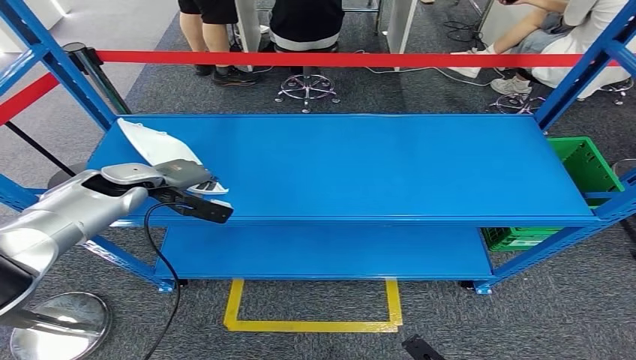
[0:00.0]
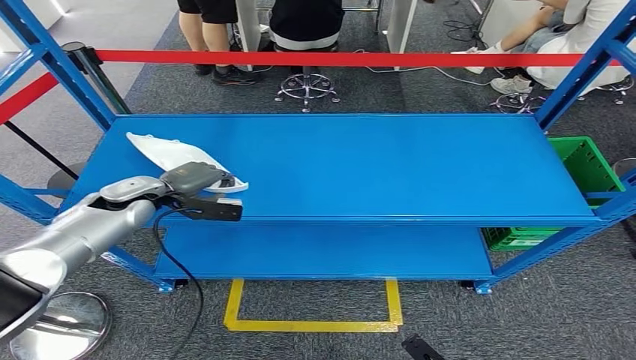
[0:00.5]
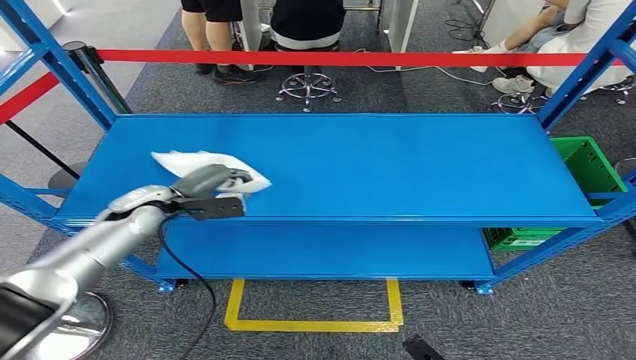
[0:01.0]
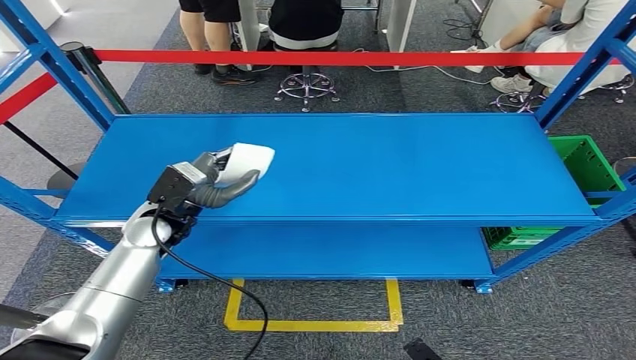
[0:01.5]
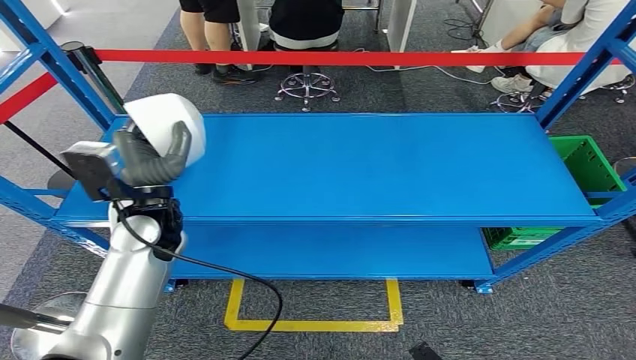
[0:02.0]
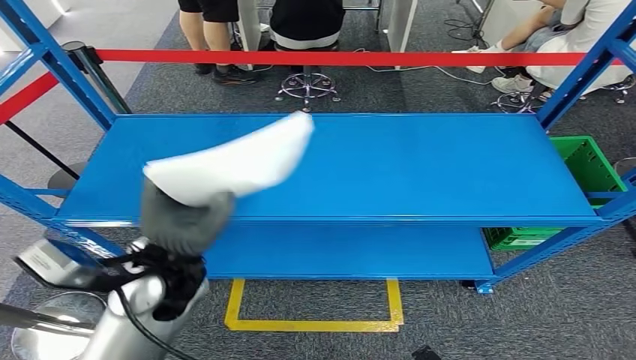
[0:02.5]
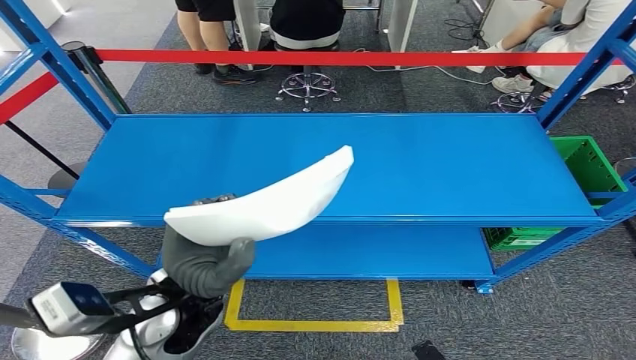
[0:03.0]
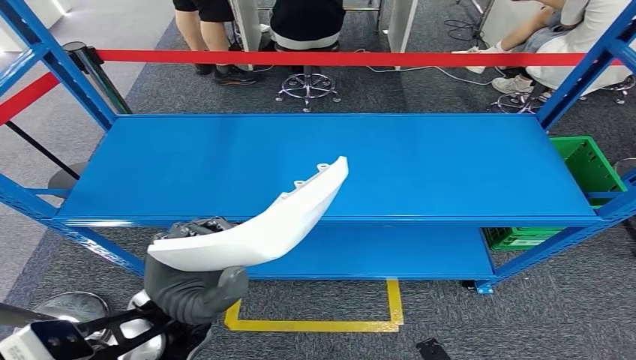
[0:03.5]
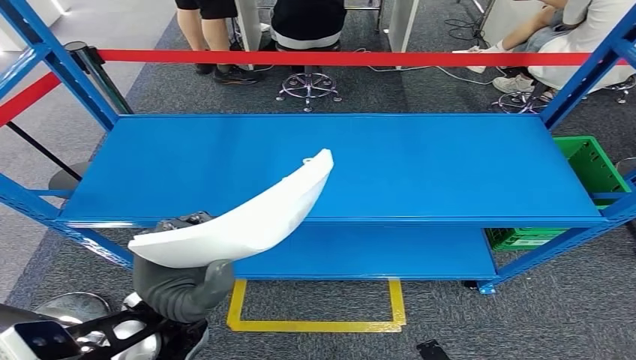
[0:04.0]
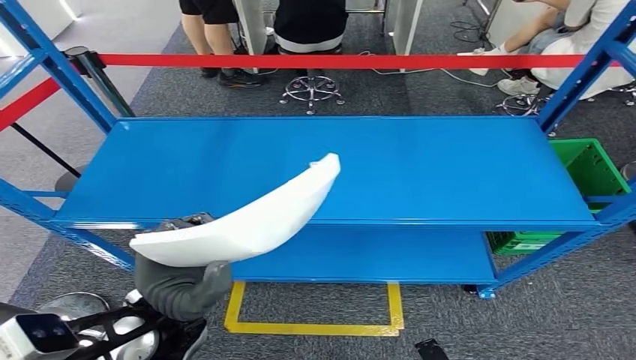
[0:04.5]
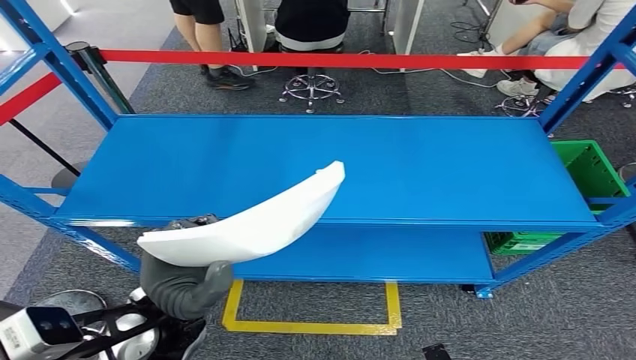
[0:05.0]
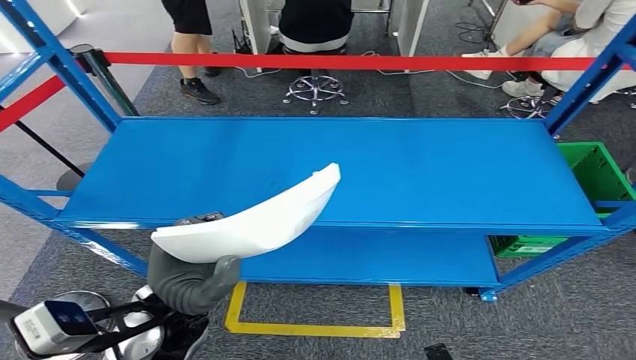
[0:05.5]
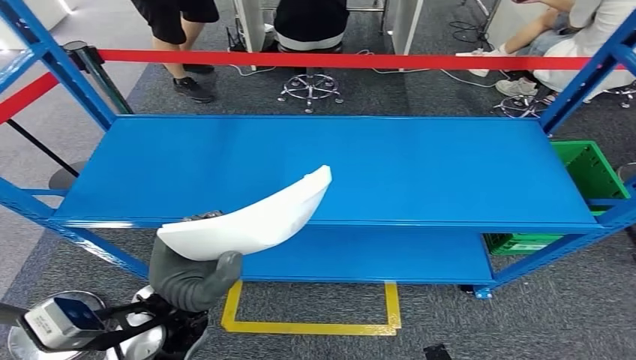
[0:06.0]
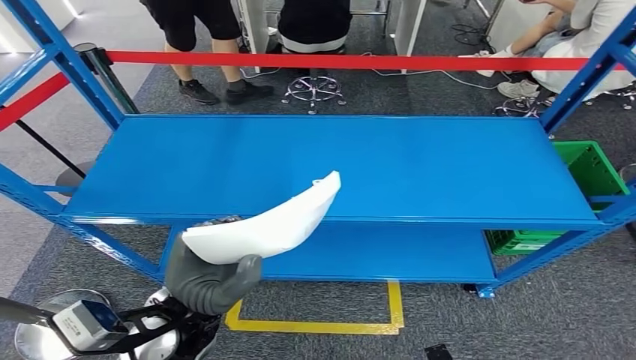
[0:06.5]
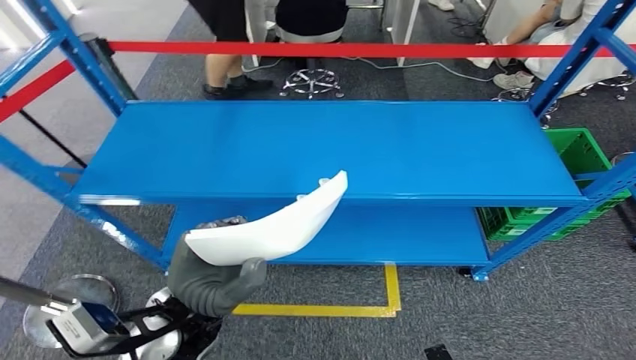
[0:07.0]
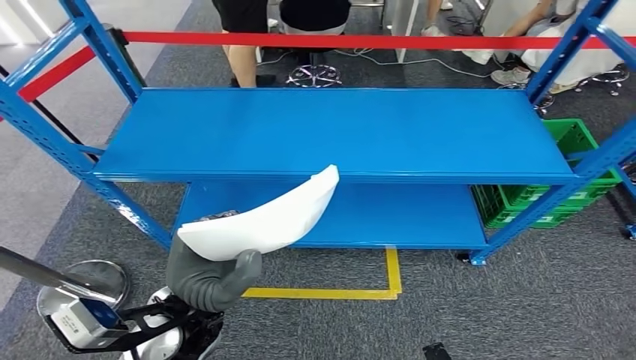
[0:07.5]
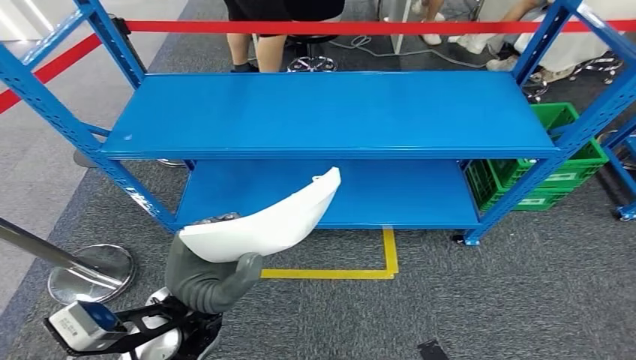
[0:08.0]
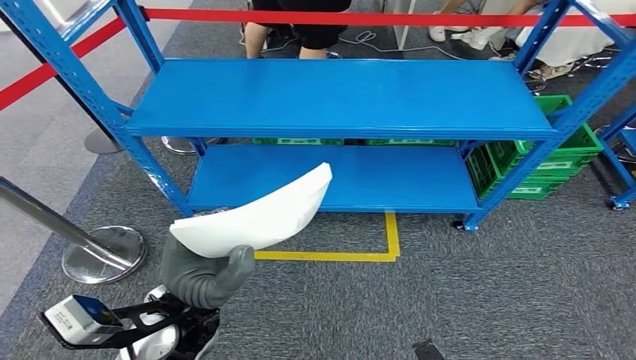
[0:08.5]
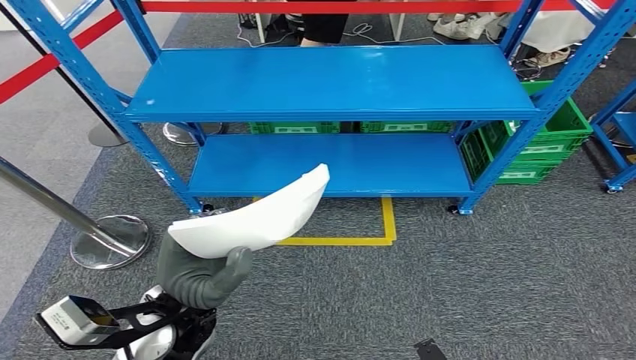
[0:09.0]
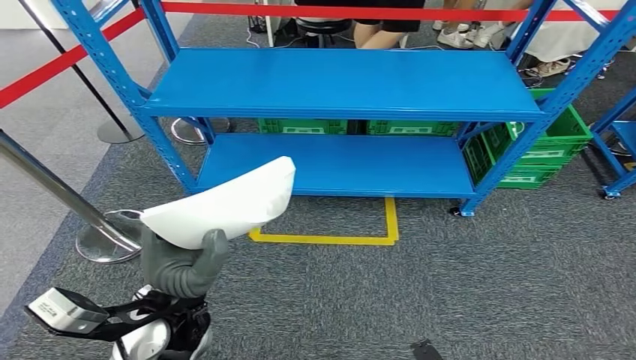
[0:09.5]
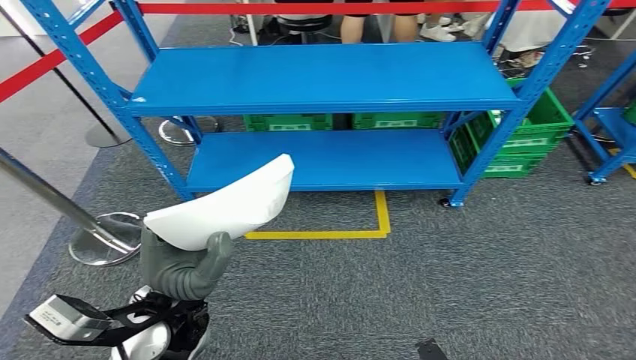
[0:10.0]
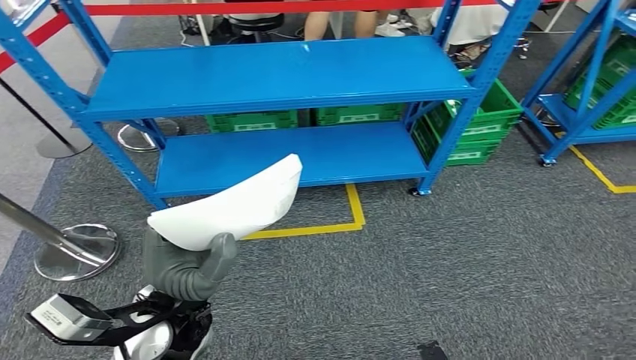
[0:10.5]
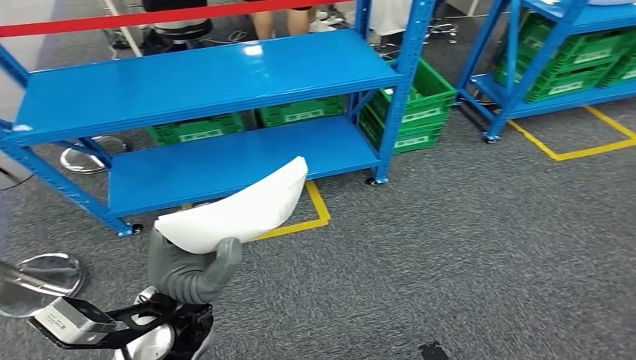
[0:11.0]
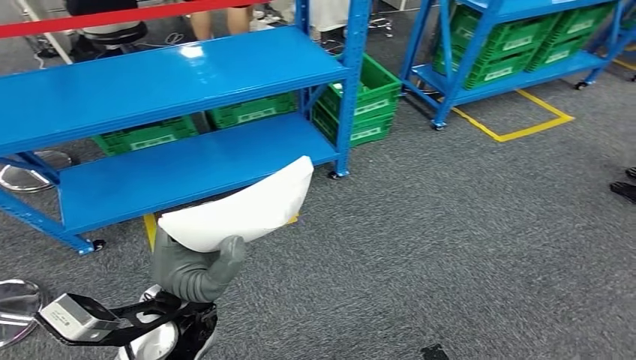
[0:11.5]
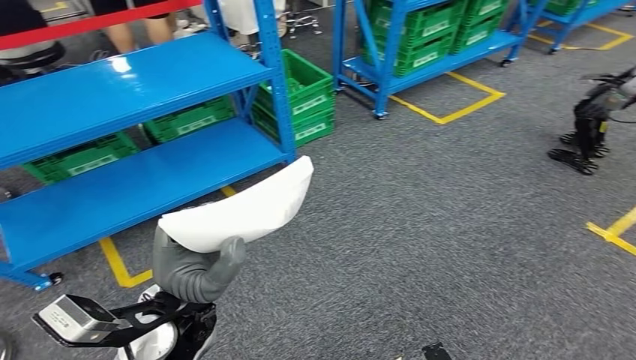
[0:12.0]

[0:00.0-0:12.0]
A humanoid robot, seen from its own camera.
Step, 0:00.0 to 0:06.0: Take small components from the rack.
0:00.0 to 0:02.0: The left hand heads to the right and backward, covering about 15 cm.

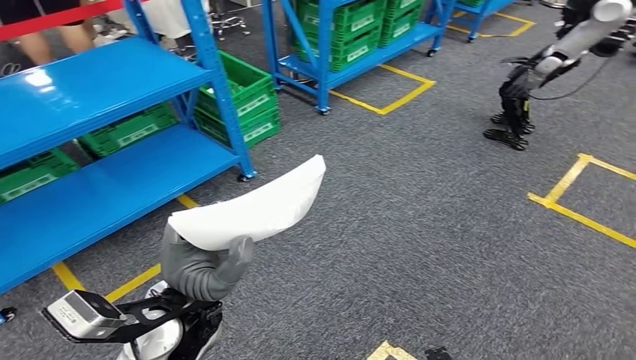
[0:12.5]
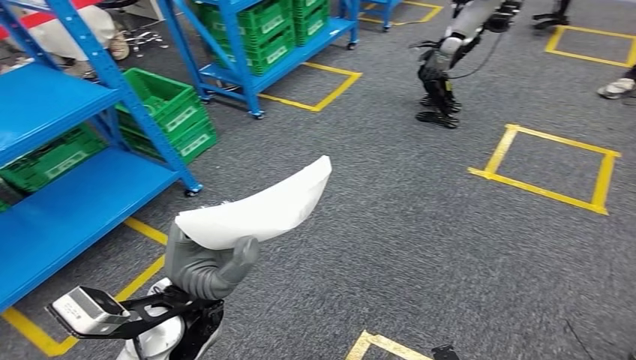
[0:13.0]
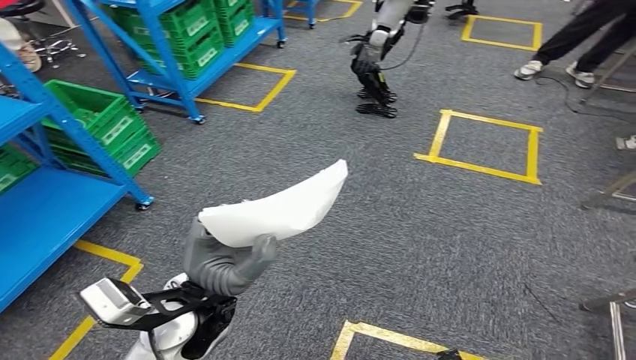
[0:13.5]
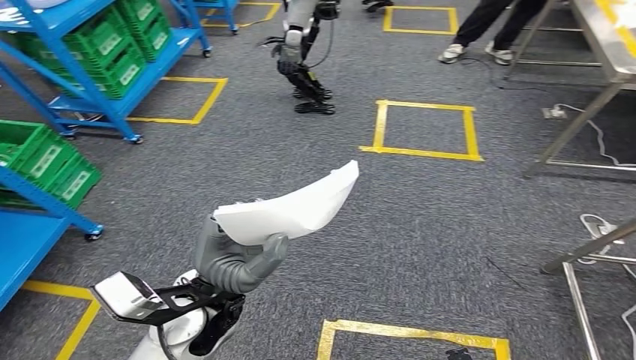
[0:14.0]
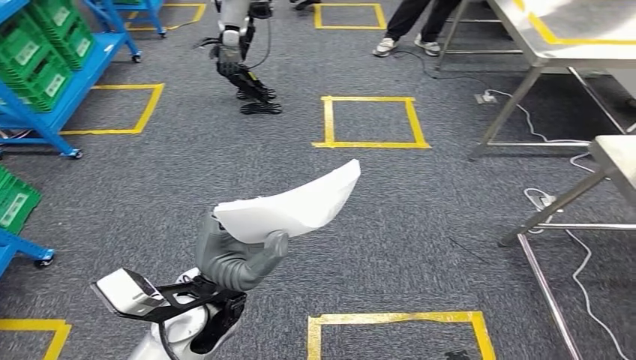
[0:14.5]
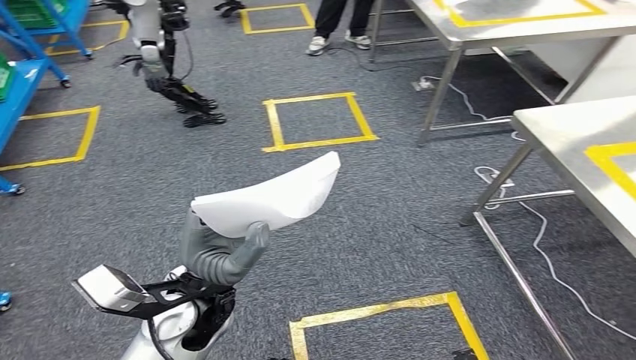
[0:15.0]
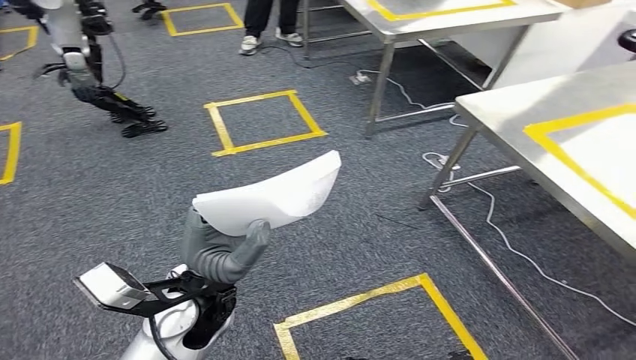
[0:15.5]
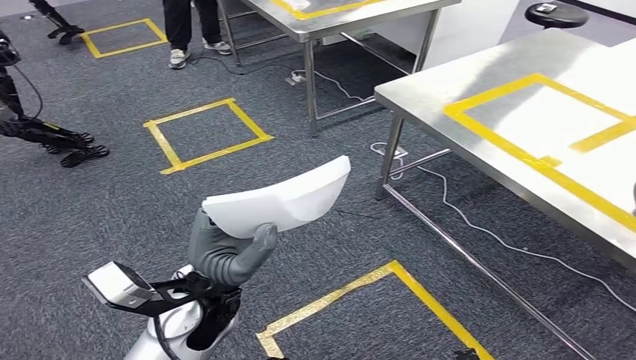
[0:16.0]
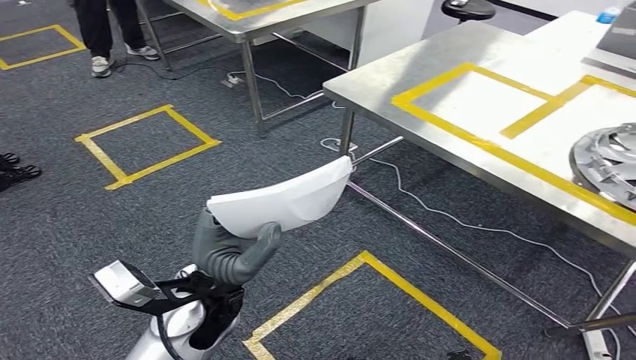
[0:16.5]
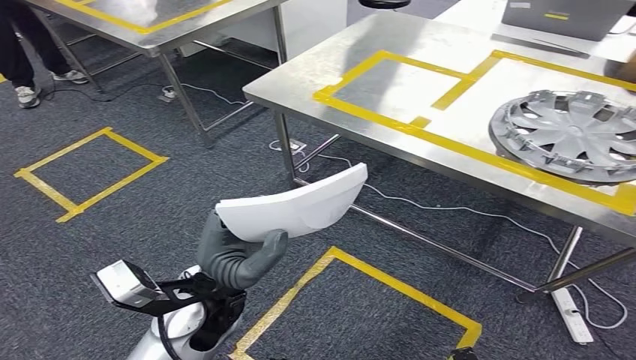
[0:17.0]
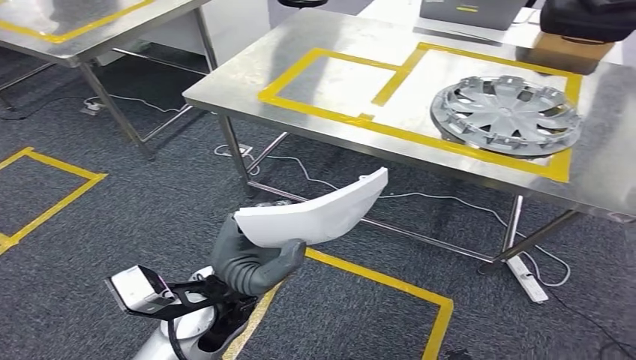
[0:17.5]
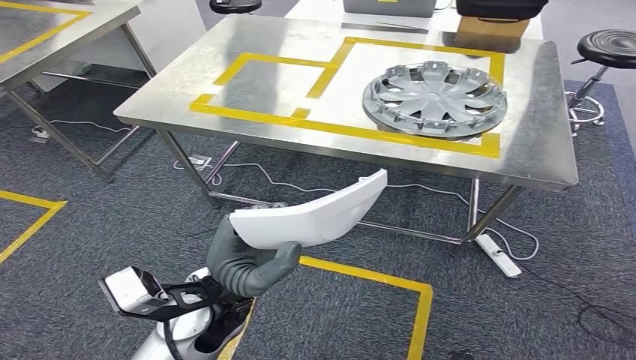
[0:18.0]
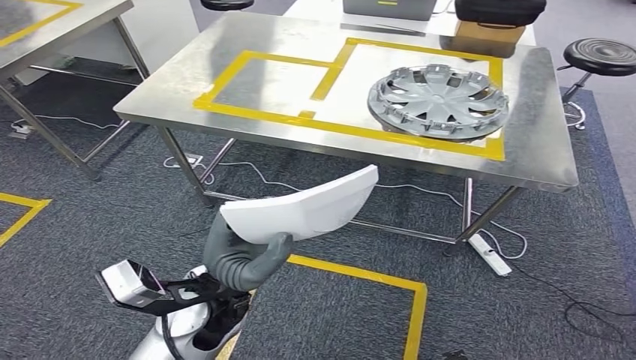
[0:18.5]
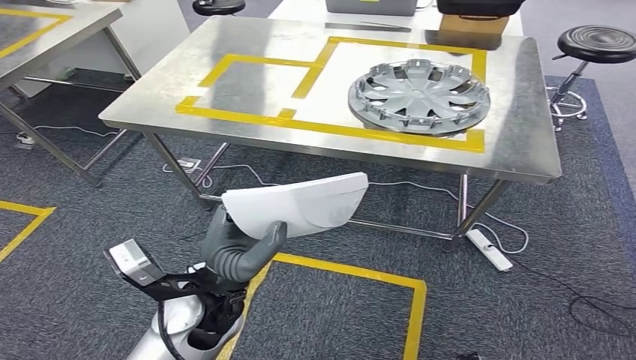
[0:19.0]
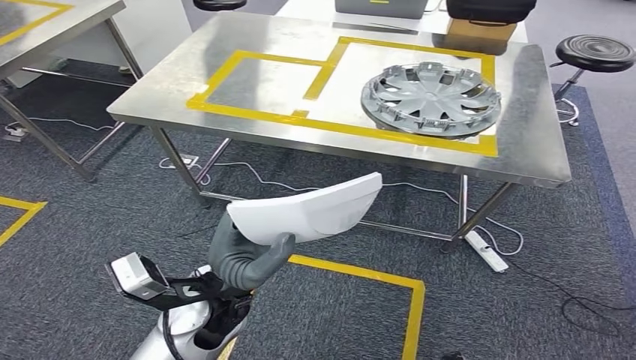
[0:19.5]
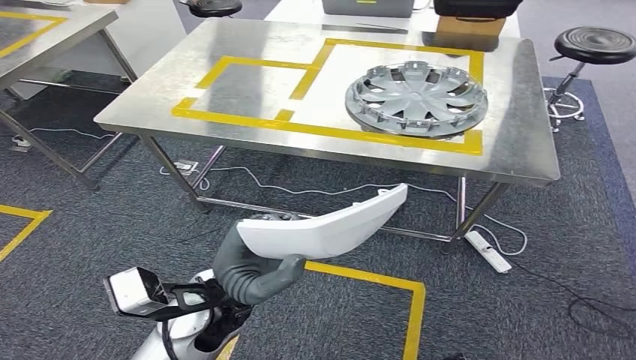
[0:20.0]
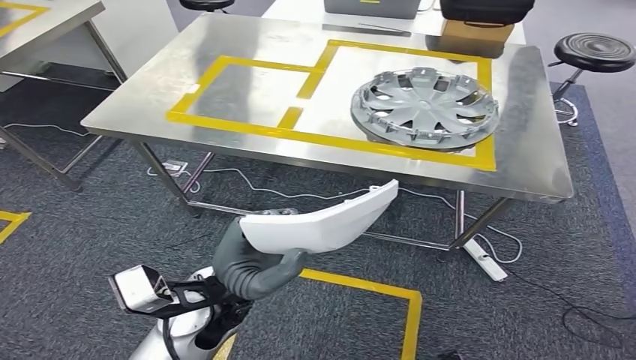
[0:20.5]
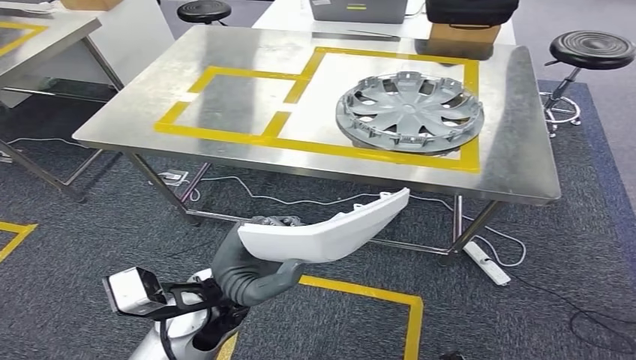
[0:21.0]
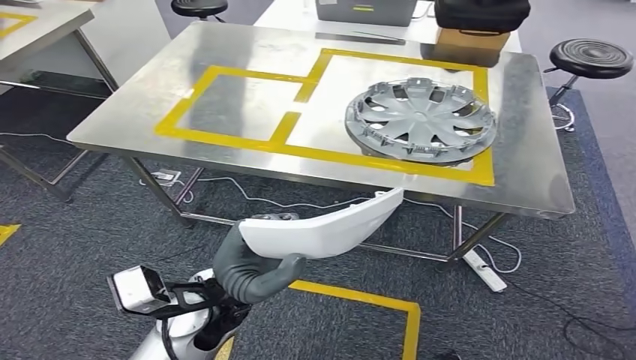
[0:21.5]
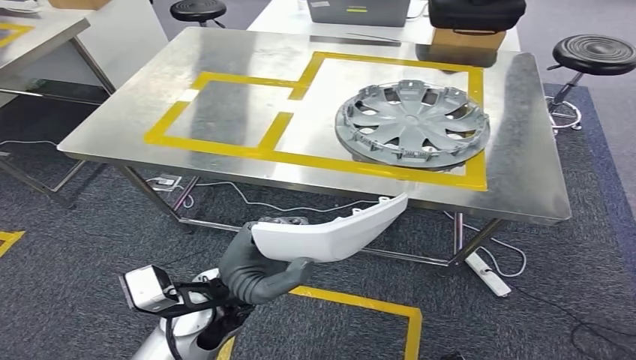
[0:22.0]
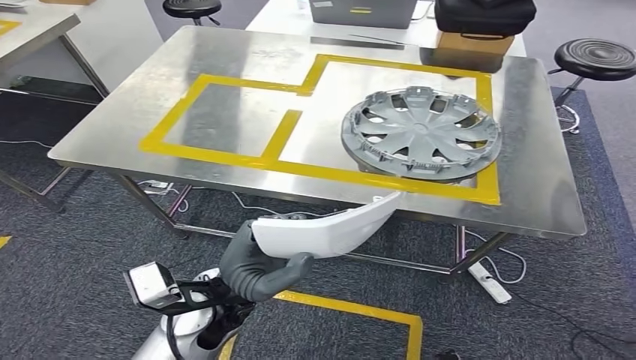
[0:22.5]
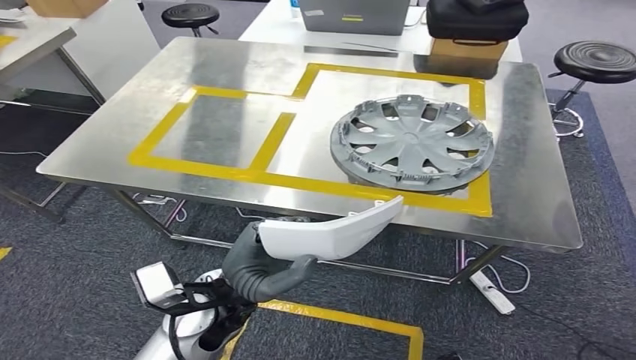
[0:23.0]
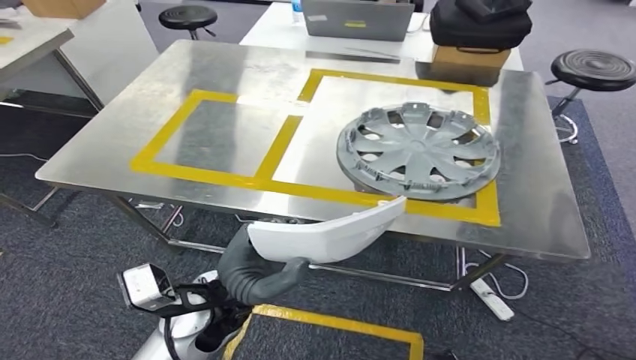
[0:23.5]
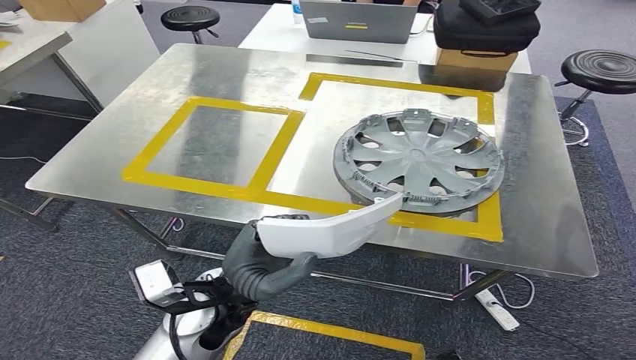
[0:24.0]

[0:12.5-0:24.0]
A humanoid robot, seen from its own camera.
Step, 0:12.5 to 0:15.5: Move the small parts to the workbench.
